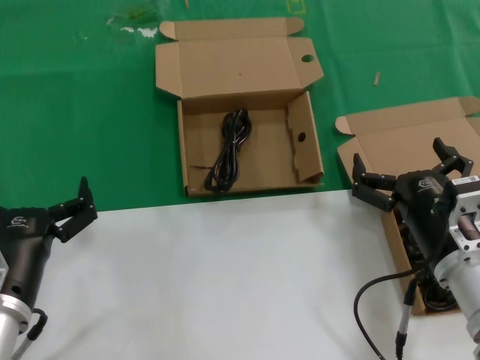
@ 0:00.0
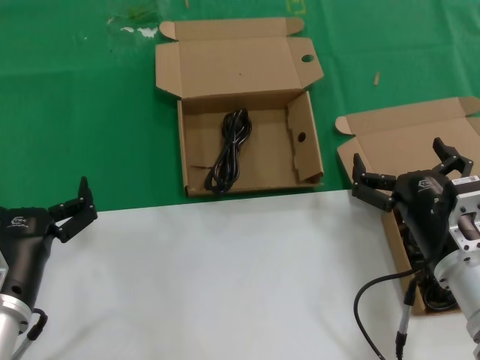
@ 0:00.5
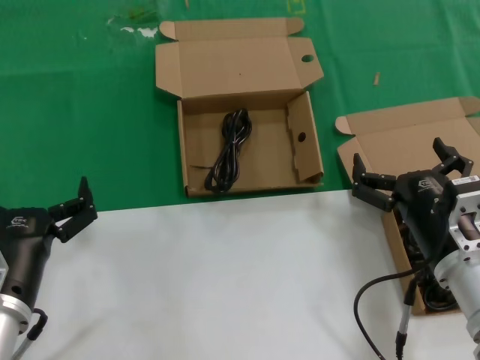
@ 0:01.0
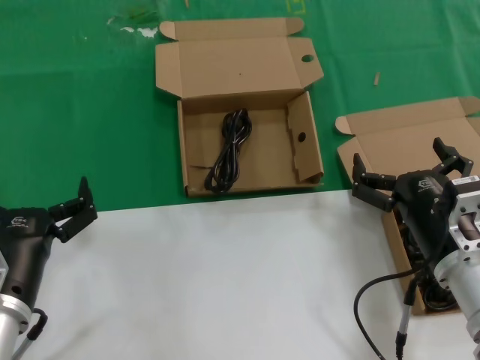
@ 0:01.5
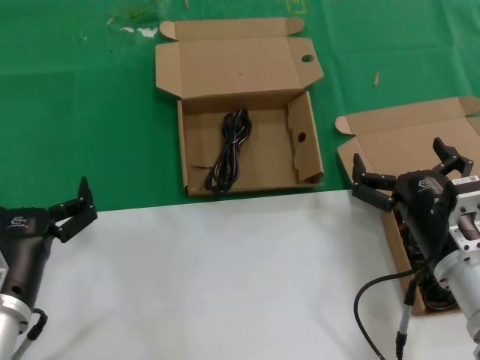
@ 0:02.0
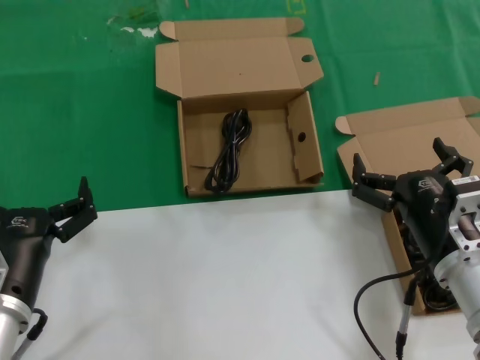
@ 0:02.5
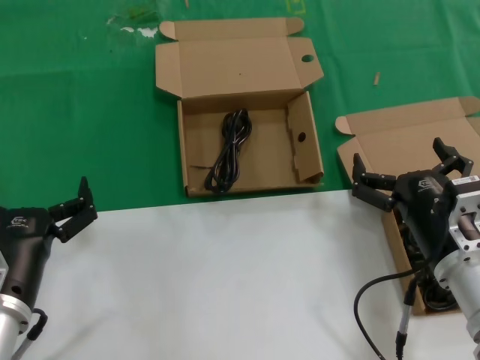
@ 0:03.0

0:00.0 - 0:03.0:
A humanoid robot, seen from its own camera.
Task of the whole recording: take the parts from the box containing them and put them into an empty box.
0:00.0 - 0:03.0: The two hands keep their place.

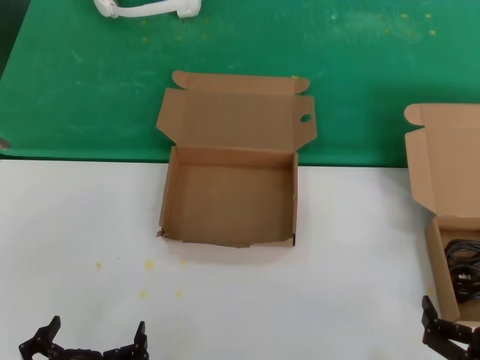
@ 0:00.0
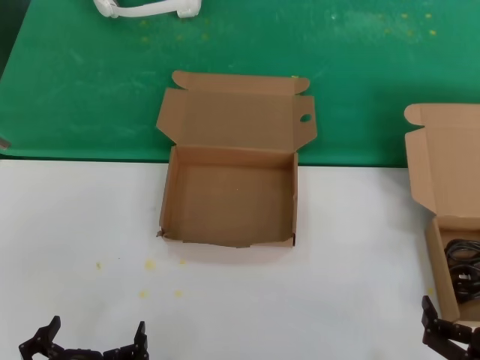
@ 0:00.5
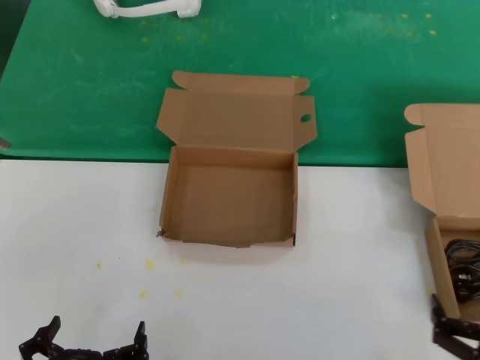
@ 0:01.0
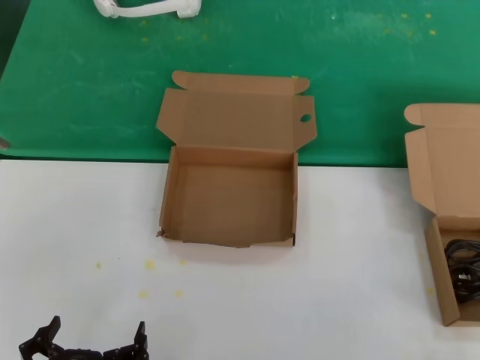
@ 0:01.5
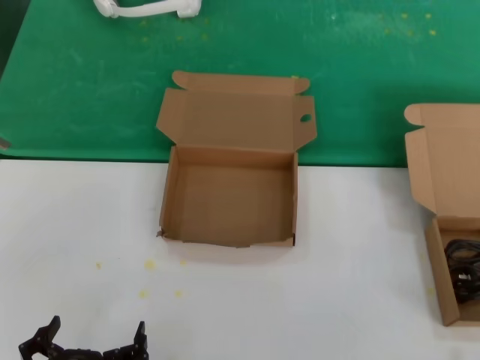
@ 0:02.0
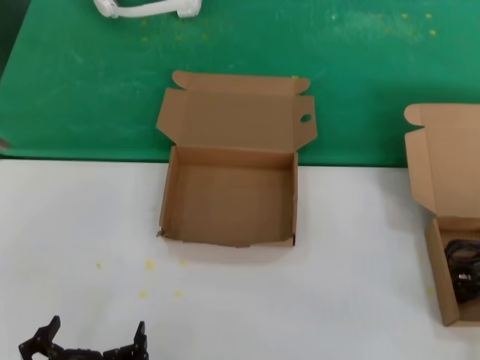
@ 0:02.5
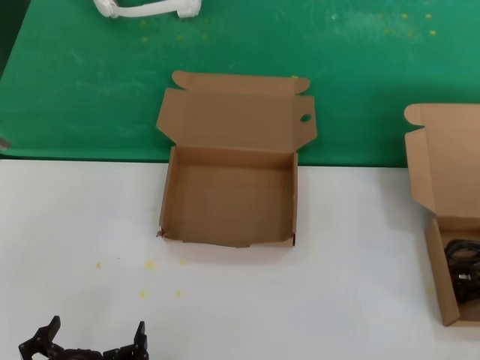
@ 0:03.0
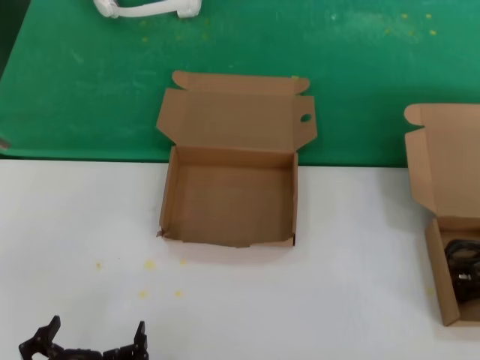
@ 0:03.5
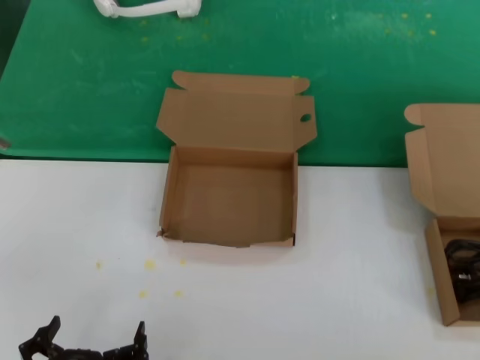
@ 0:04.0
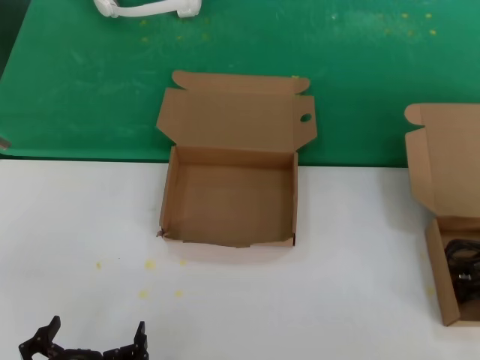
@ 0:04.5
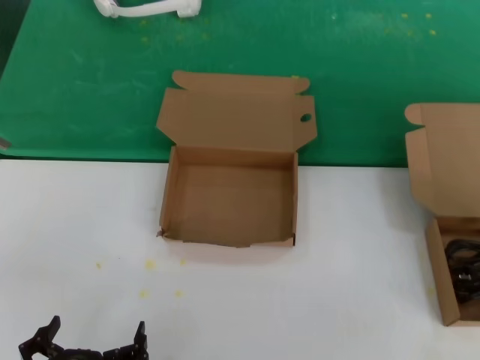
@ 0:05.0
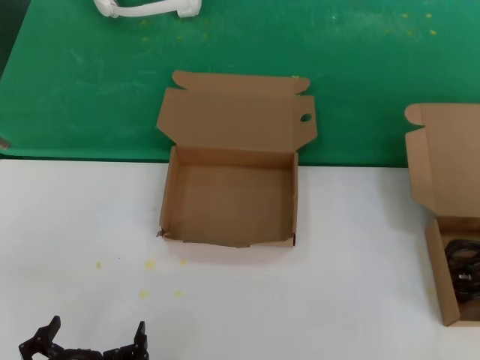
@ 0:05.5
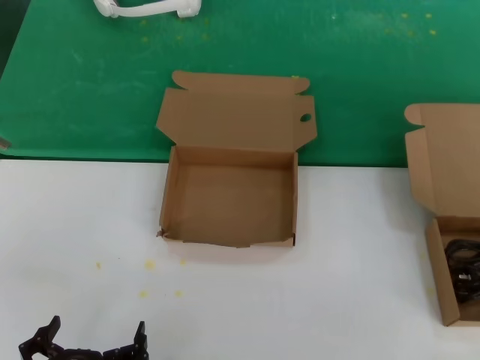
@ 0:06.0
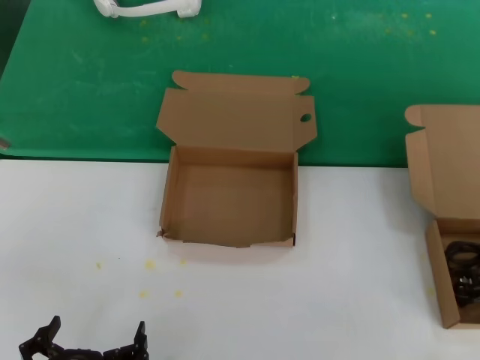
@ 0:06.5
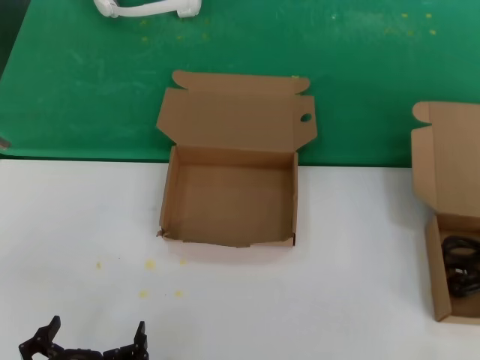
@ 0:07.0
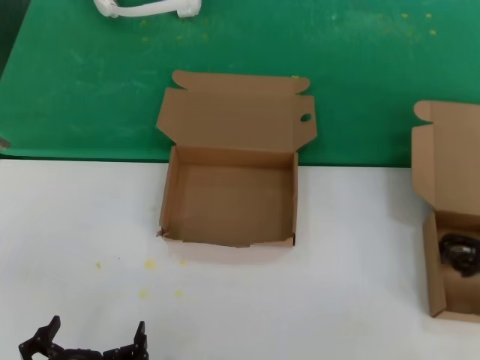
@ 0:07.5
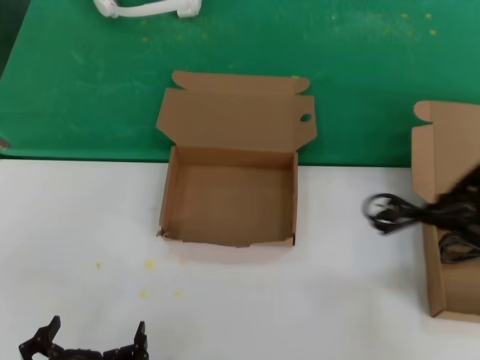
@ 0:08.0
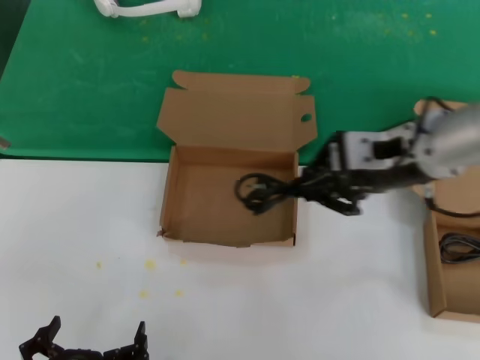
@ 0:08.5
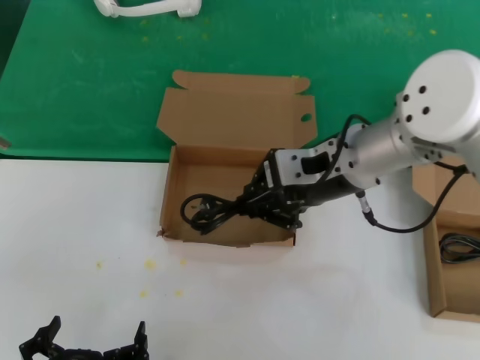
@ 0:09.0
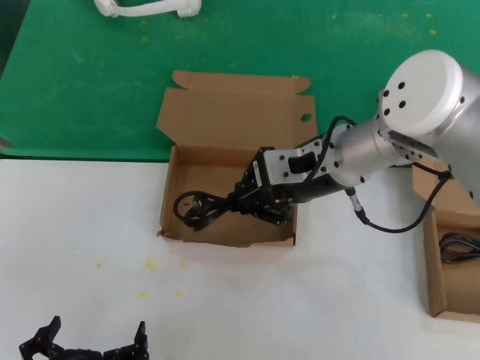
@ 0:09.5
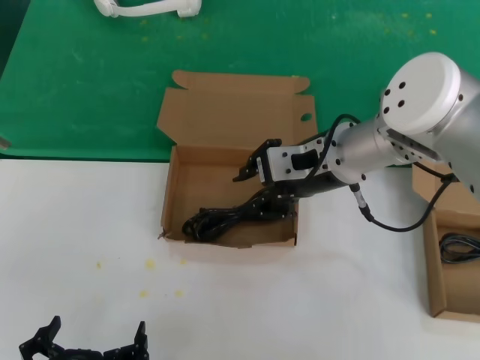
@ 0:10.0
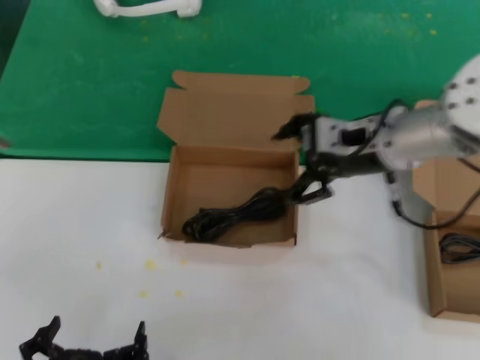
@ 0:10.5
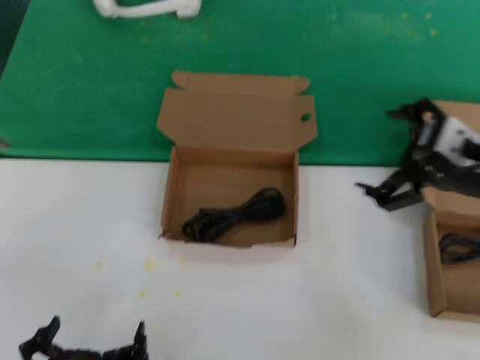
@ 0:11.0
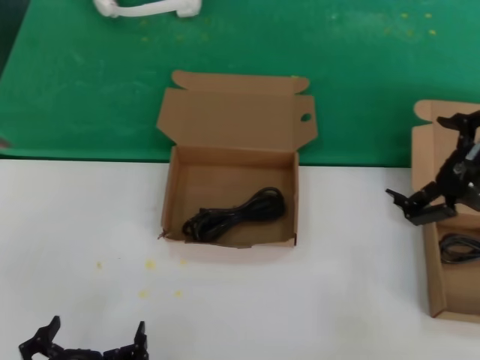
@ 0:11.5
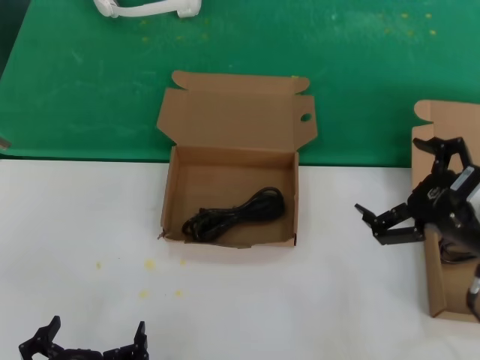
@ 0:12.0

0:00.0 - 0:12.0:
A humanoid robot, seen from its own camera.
Task of the whole recording: take the parts from the box containing them and put them into an empty box.
Step, 0:00.0 - 0:05.0: Grasp the data cable.
Step, 0:05.5 - 0:10.0: Place the data cable in the another box.
0:00.0 - 0:02.0: The right hand shifts approximately 10 cm to the right.
0:02.0 - 0:04.0: The right hand goes approximately 20 cm upward and forward.
0:06.0 - 0:08.0: The right hand travels to the left and upward by some 15 cm.
0:08.0 - 0:10.0: The right hand travels to the left and forward by about 25 cm.
0:10.0 - 0:12.0: The right hand heads to the right, backward and downward, covering about 25 cm.

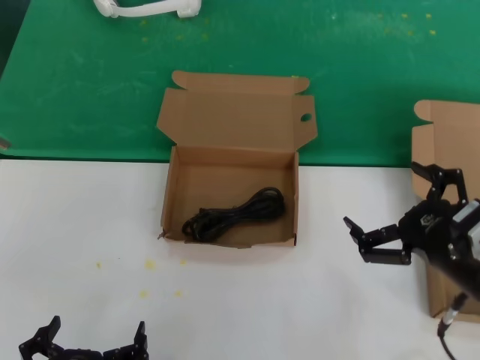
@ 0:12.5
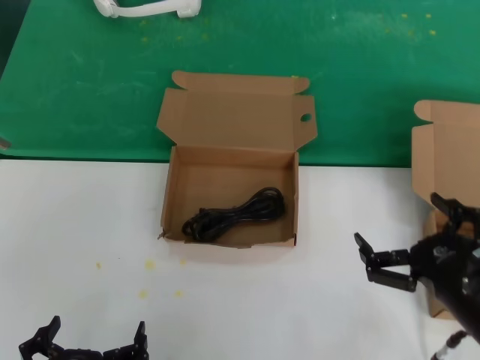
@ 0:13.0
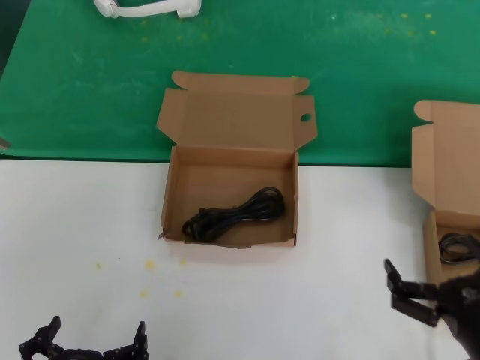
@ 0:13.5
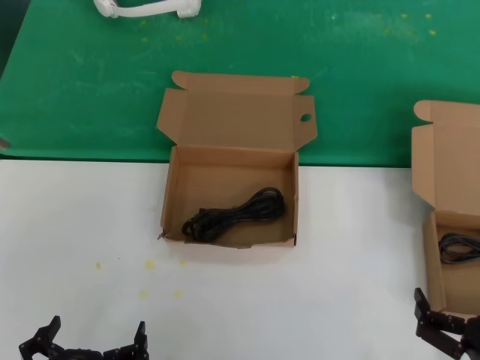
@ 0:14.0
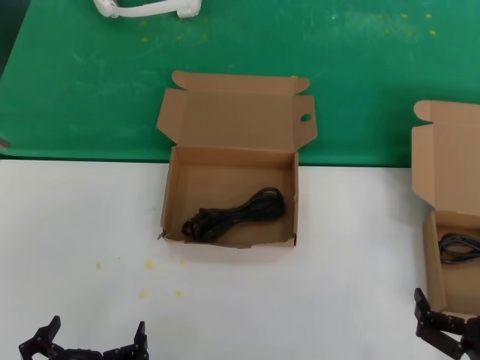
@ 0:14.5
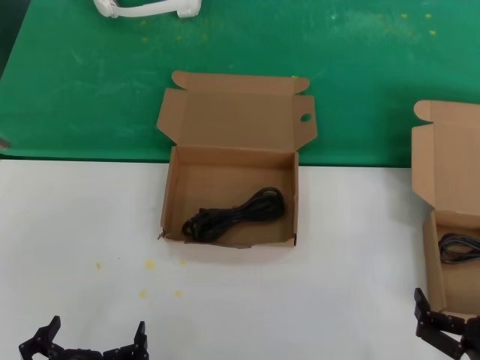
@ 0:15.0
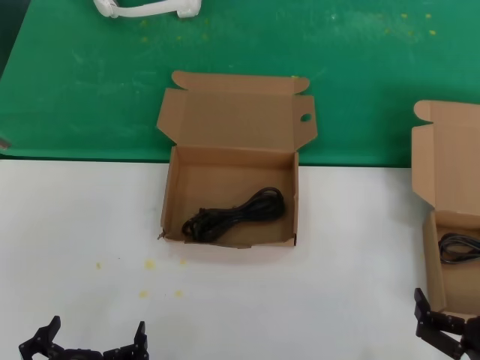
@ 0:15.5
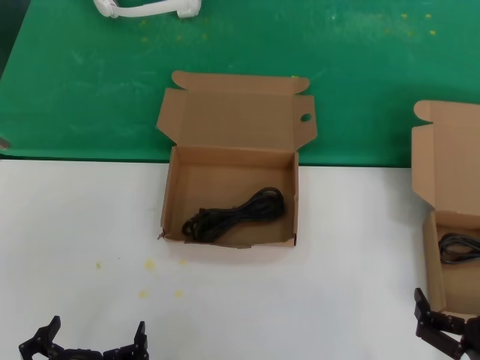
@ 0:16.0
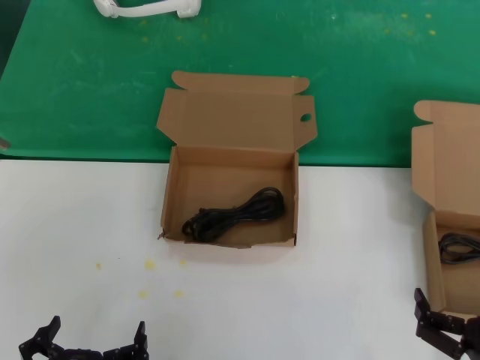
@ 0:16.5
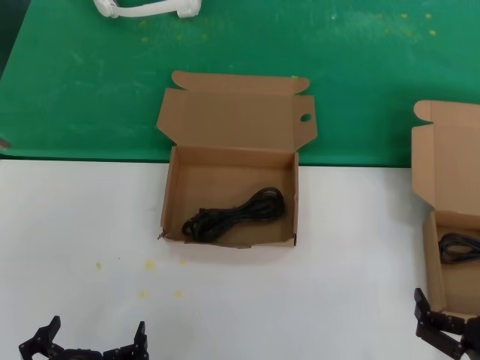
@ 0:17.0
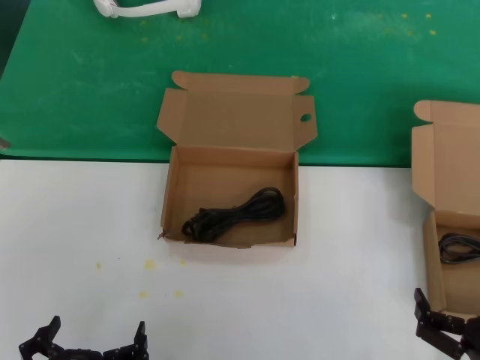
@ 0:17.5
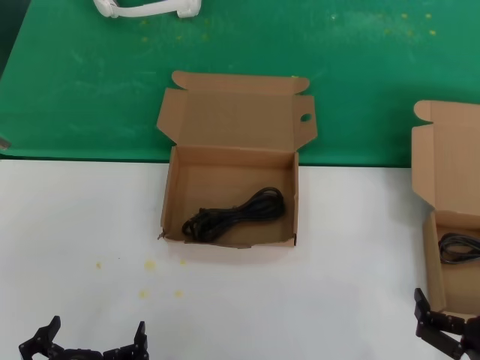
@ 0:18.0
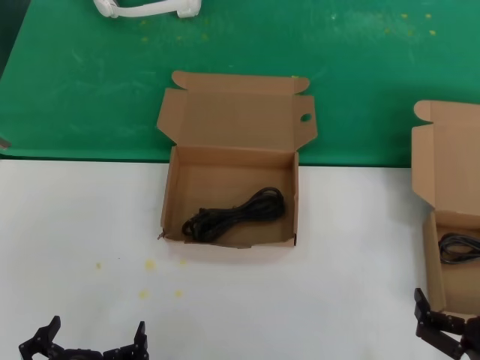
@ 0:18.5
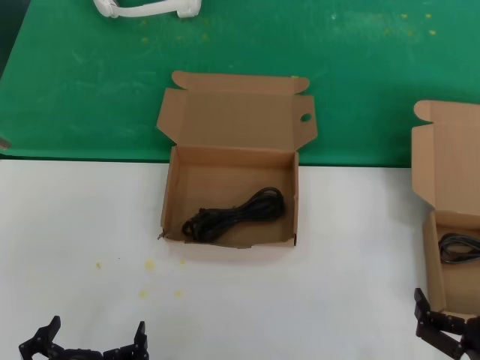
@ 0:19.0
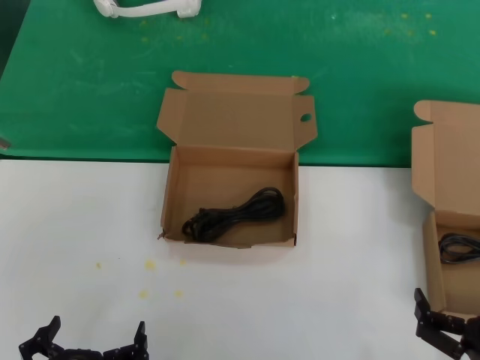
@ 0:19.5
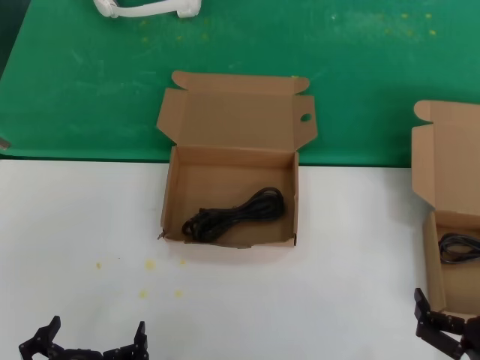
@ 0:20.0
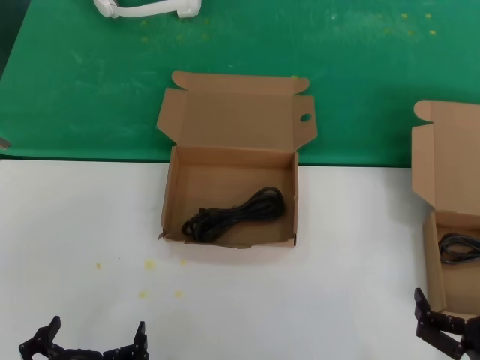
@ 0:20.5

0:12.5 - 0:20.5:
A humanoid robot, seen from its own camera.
Task of the whole recording: take the parts from the box containing them and put them into an empty box.
0:12.5 - 0:14.5: The right hand shifts about 15 cm downward and backward.
0:14.5 - 0:20.5: Both hands stay about where they are.
